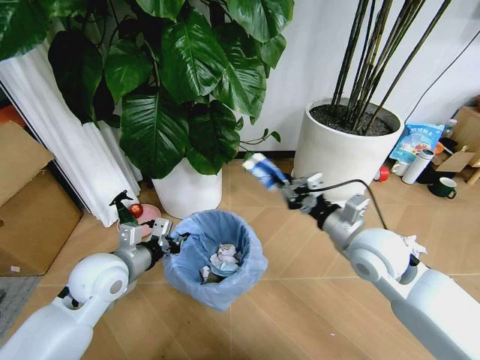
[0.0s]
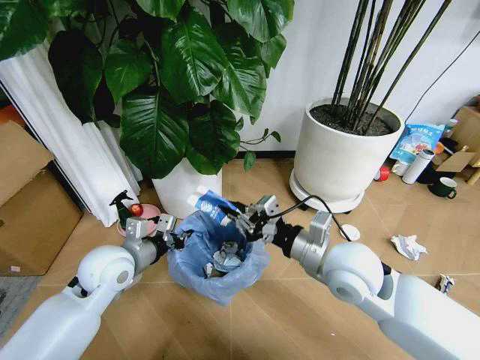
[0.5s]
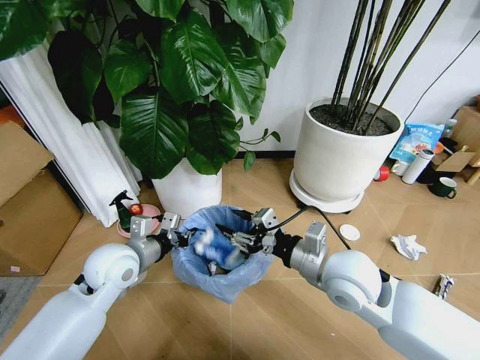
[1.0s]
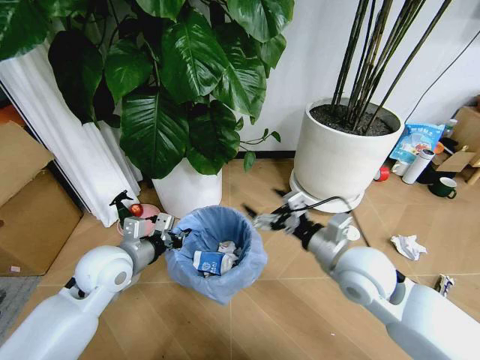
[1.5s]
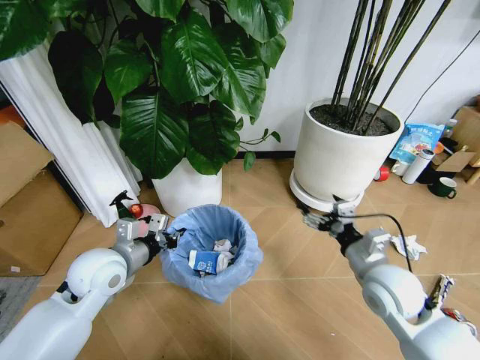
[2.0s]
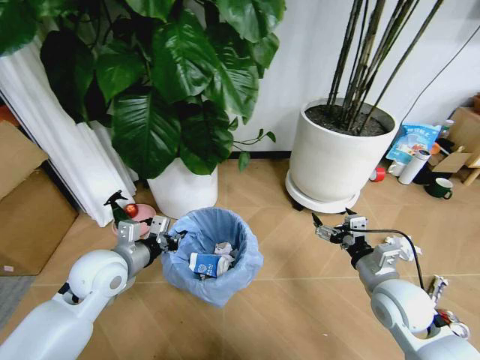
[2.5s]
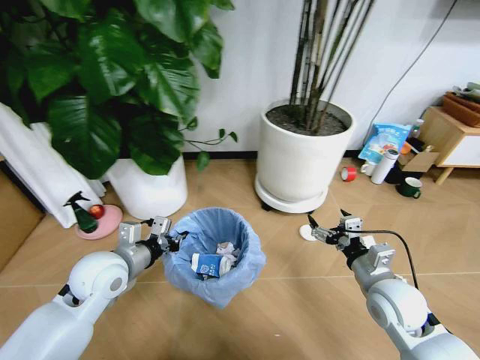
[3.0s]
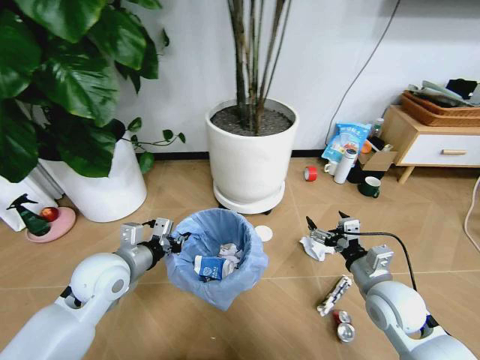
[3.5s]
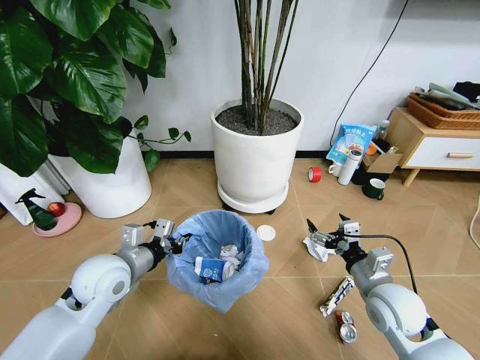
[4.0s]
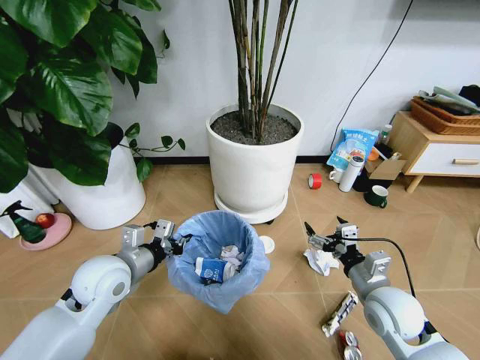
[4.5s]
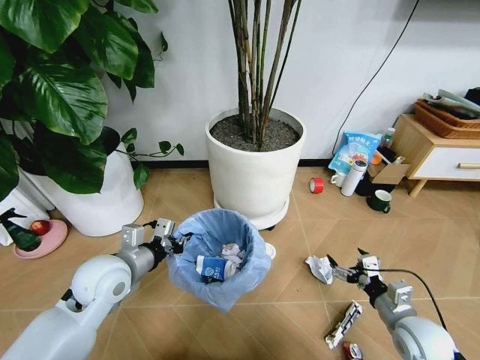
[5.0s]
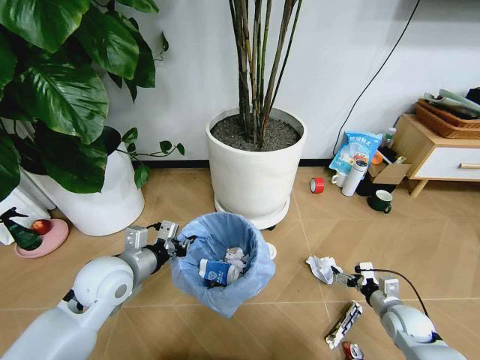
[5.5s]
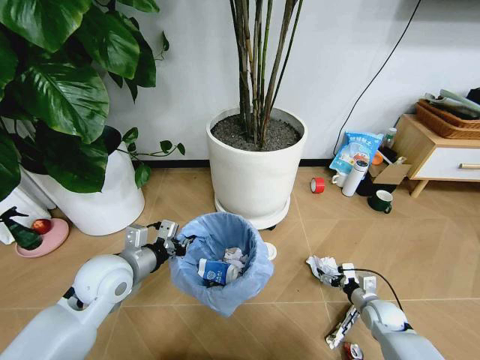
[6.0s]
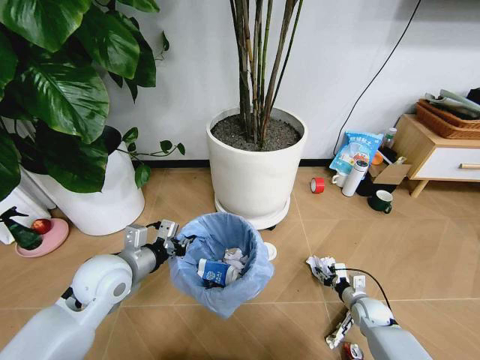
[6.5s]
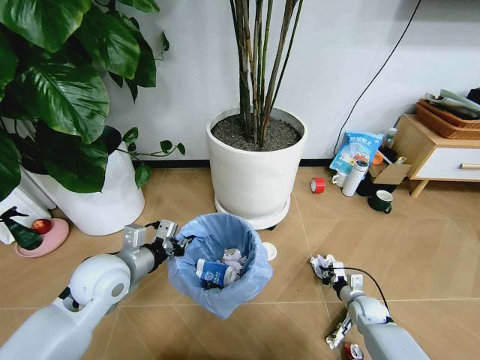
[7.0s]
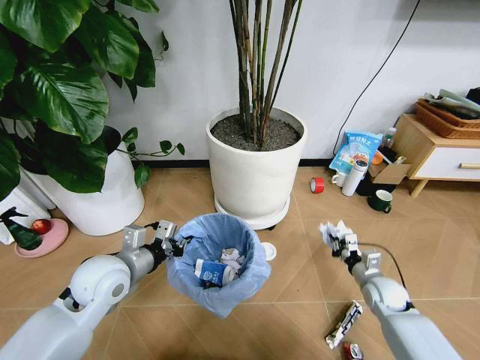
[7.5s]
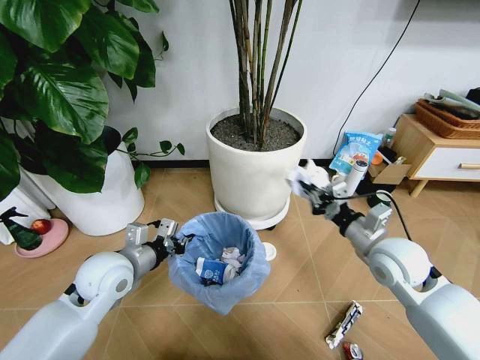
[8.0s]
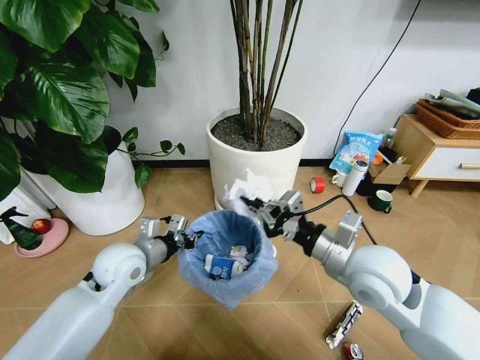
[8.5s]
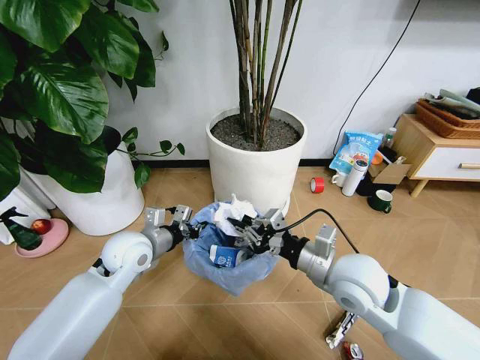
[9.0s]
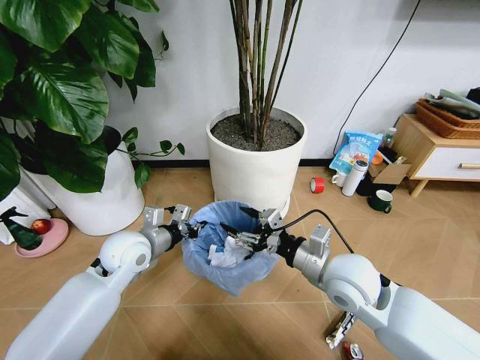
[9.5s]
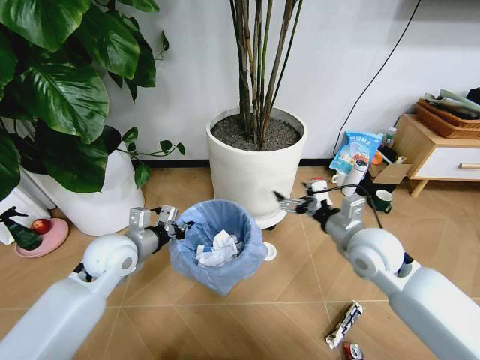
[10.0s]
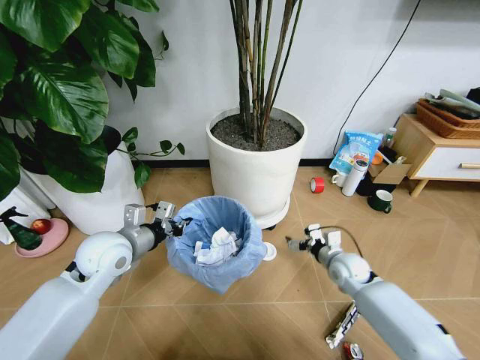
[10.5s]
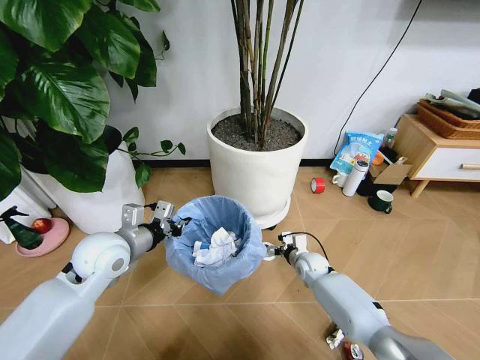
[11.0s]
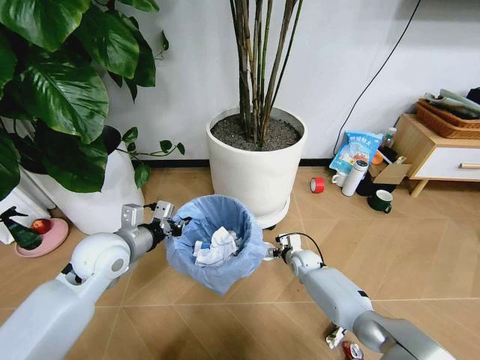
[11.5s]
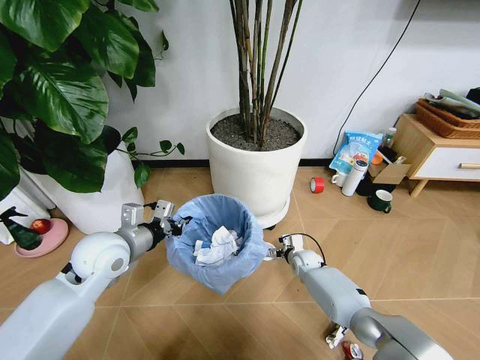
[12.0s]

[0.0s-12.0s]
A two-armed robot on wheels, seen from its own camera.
Task of the whole recording: Pick up the trash bin and place the garbage on the floor into it.
0.0s to 2.0s: The right gripper is displaced downward by some 5 cm, and opens its fingers.
4.0s to 6.0s: The right gripper moves downward and to the right, approximately 20 cm.
6.0s to 8.0s: The right gripper moves upward, roughly 30 cm, and closes its fingers.
8.0s to 10.0s: The right gripper heads to the left, covering some 5 cm, and opens up.
10.0s to 12.0s: The right gripper heads downward and forward, covering approximately 35 cm.

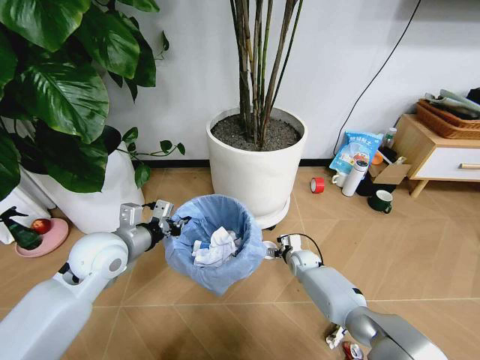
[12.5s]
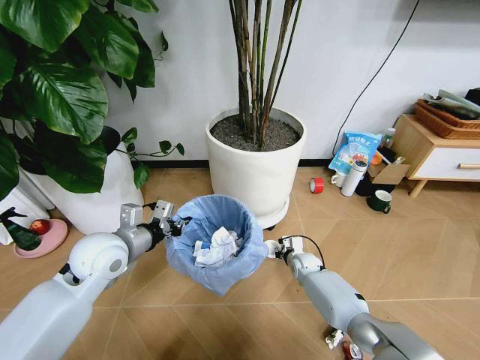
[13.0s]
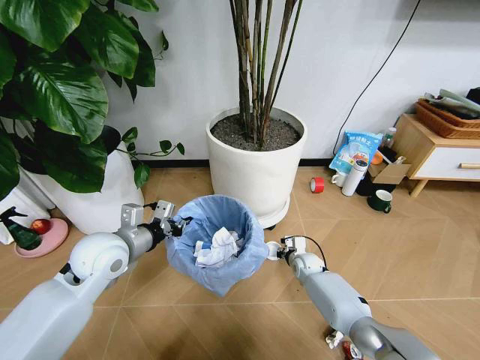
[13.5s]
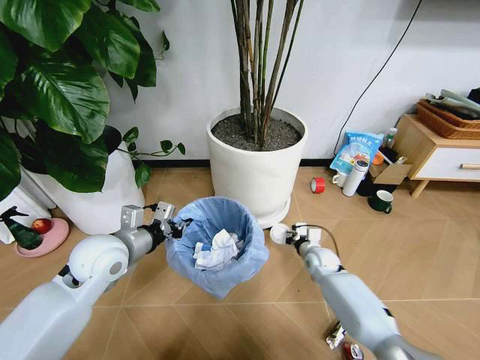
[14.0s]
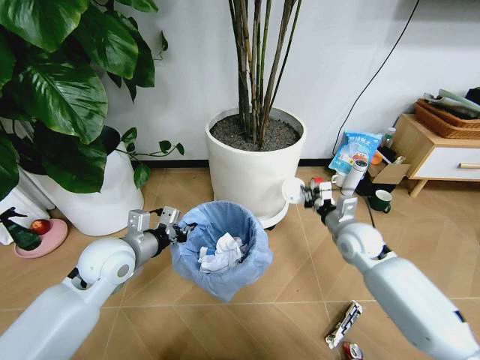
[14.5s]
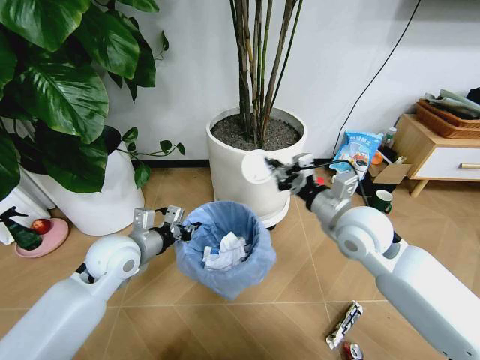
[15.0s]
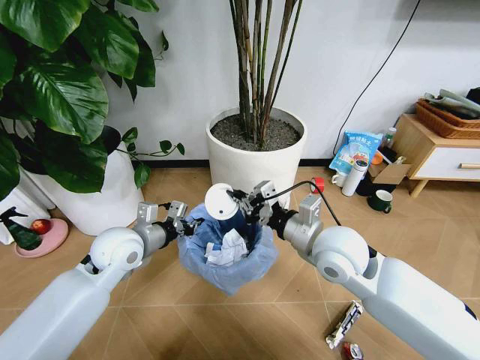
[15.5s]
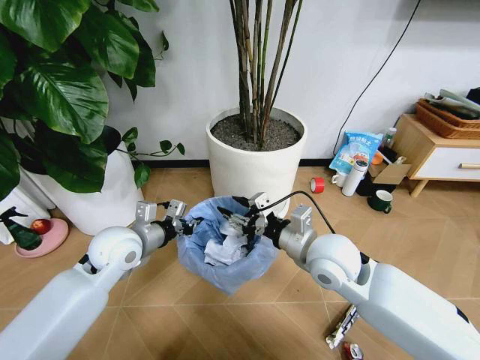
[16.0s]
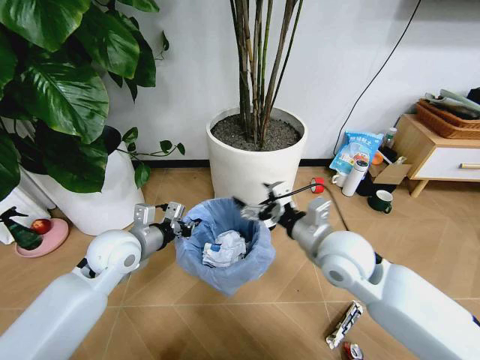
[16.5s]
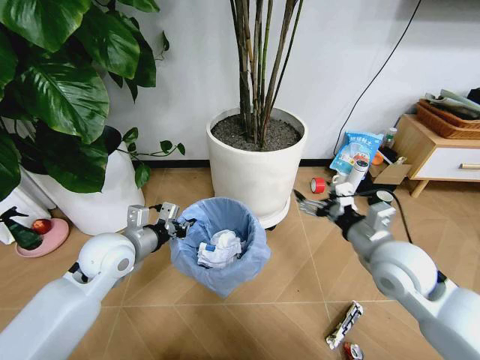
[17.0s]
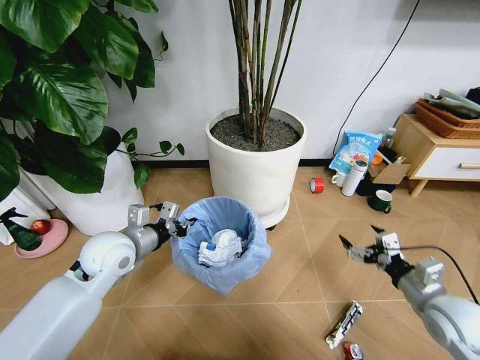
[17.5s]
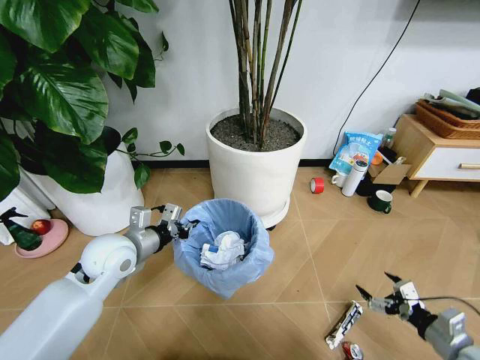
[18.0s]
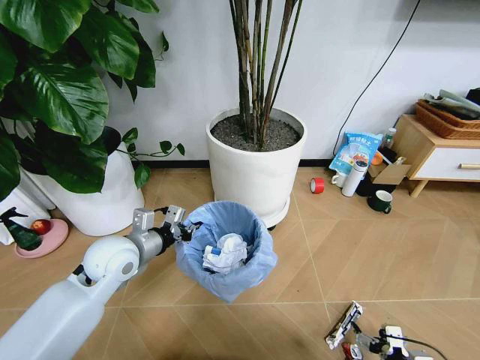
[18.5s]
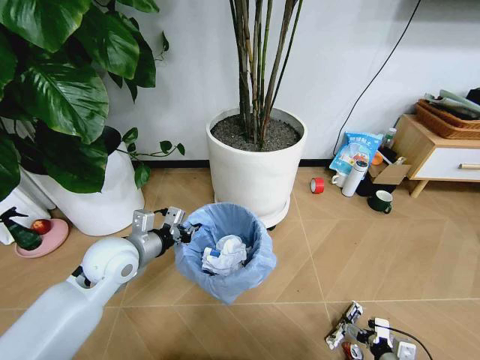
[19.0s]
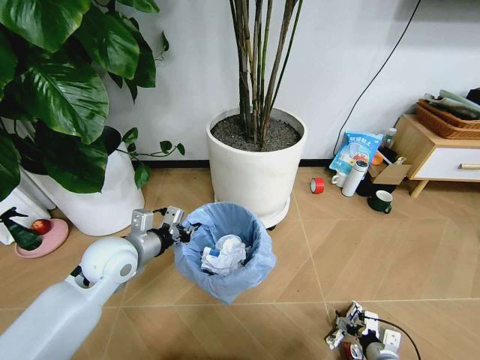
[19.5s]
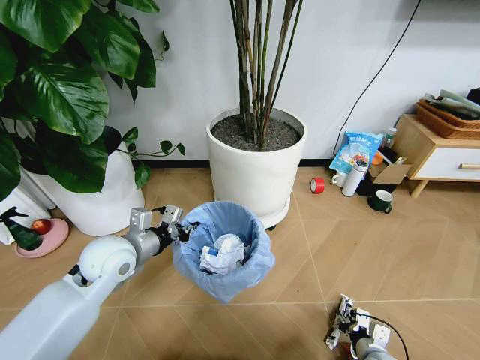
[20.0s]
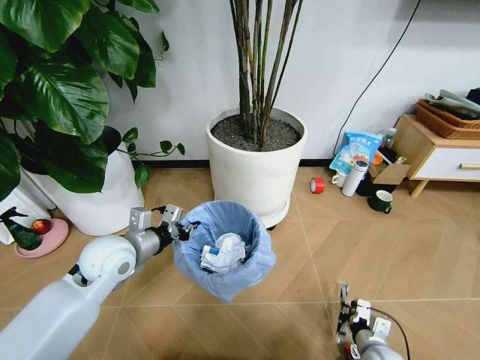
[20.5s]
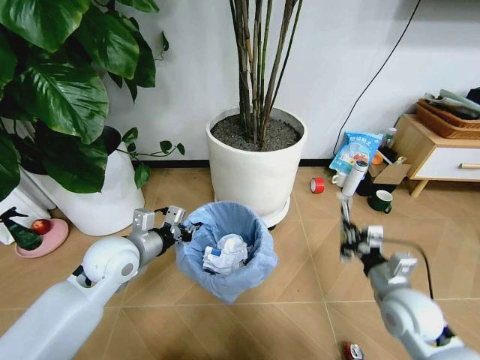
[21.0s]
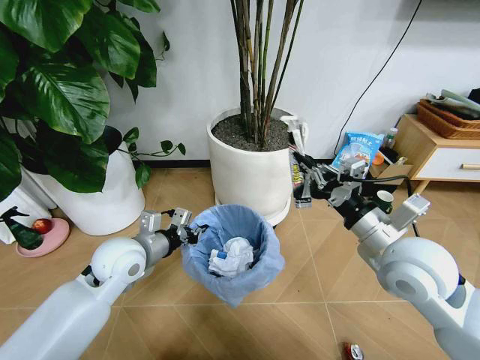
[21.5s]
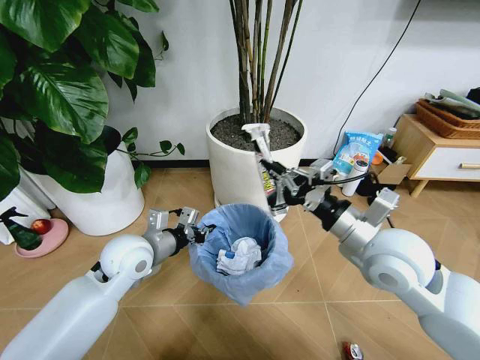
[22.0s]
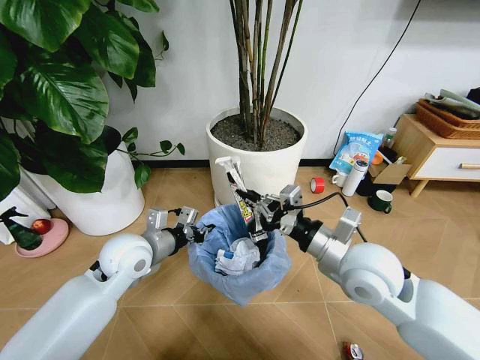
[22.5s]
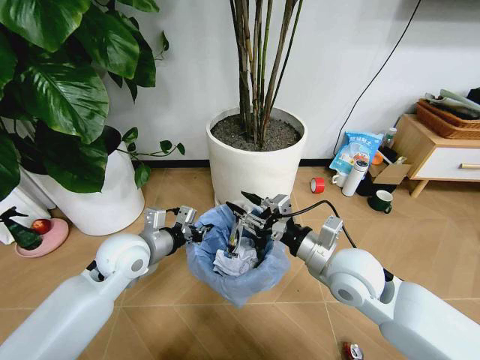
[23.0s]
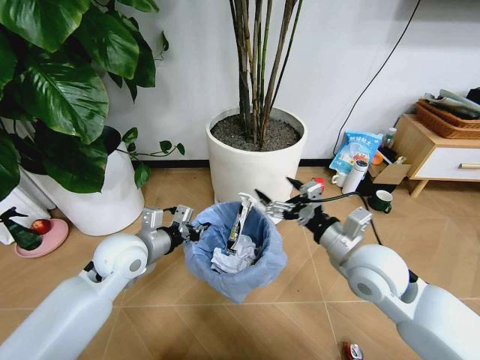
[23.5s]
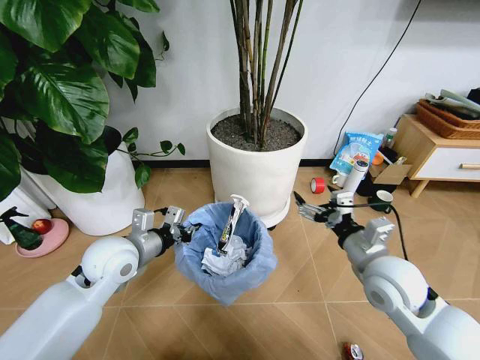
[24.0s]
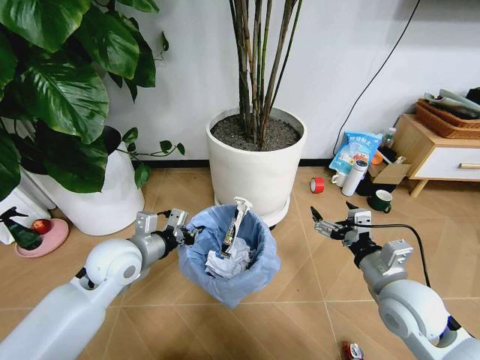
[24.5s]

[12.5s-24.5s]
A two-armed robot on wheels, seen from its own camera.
Task of the whole recording: Pick up the trash bin and place the garbage on the floor into it.
12.5s to 14.5s: The right gripper shifts roughly 20 cm upward, and closes.
14.5s to 16.5s: The right gripper shifts roughly 20 cm upward, to the left and backward, and opens up.
16.5s to 18.5s: The right gripper heads downward, backward and to the right, covering about 40 cm.
18.5s to 20.5s: The right gripper heads forward and to the left, covering about 10 cm, and closes up.
20.5s to 22.5s: The right gripper moves upward and to the left, about 35 cm.
22.5s to 24.5s: The right gripper travels to the right and downward by about 10 cm, and opens.

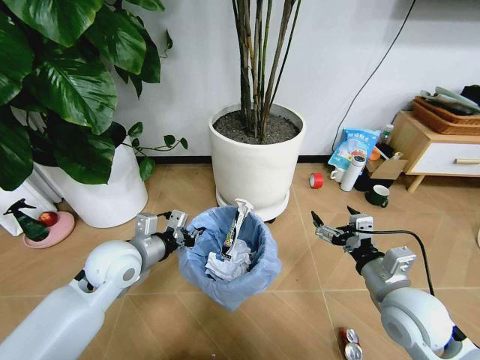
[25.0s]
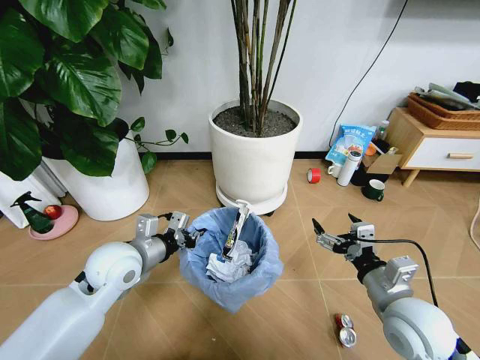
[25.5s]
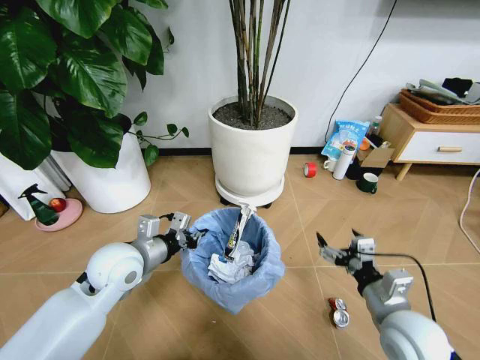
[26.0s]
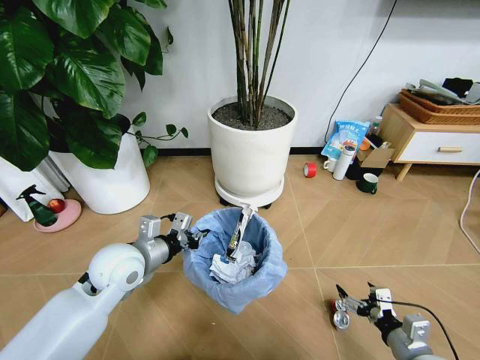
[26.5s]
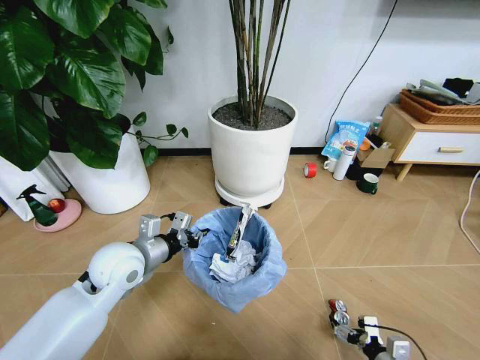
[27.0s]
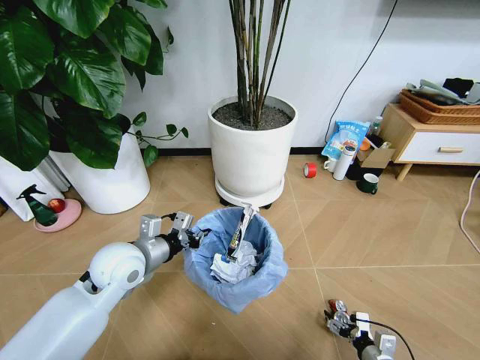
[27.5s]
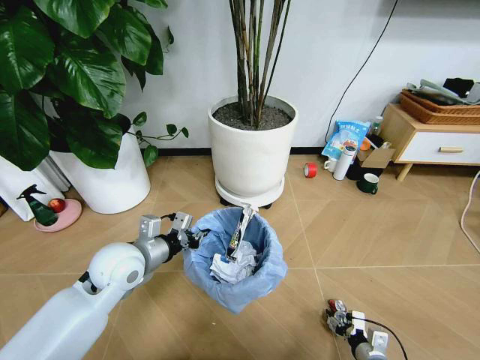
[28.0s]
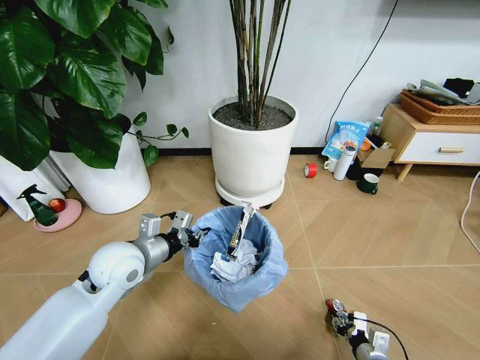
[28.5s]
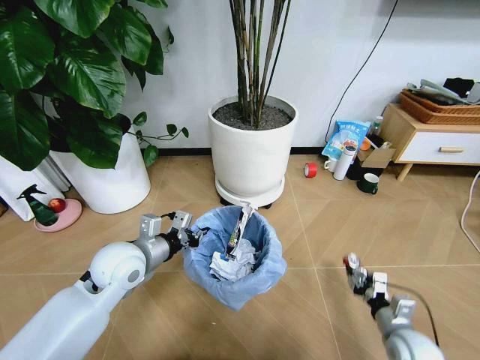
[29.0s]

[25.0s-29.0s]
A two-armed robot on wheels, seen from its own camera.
Task of the whole recording: Pick up the trash bin and place the garbage on the floor into it.
25.0s to 27.0s: The right gripper shifts some 25 cm downward and backward.
27.0s to 29.0s: The right gripper shifts roughly 10 cm forward and upward, and closes its fingers.
